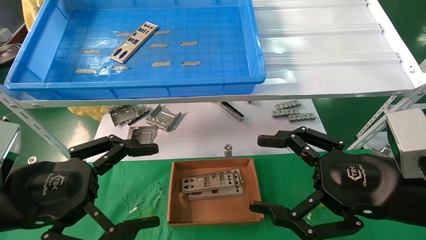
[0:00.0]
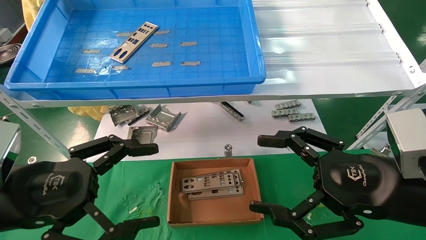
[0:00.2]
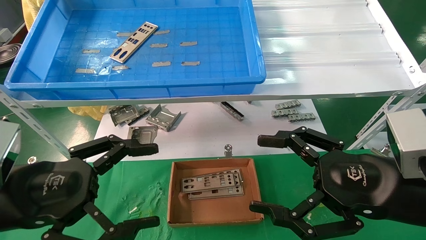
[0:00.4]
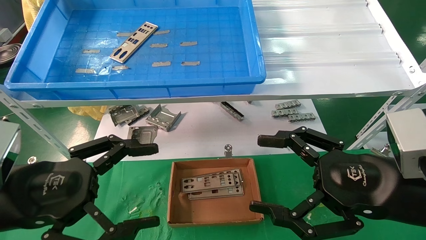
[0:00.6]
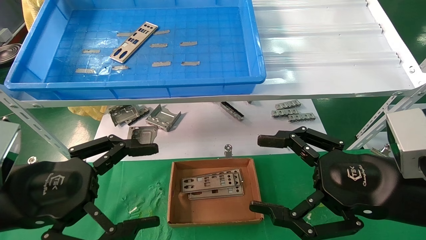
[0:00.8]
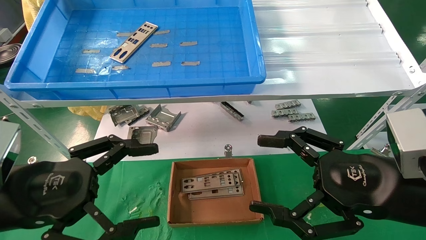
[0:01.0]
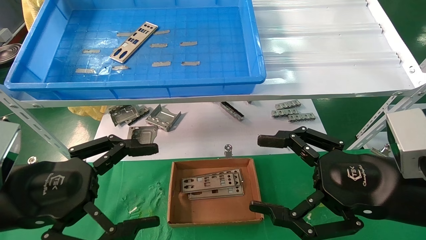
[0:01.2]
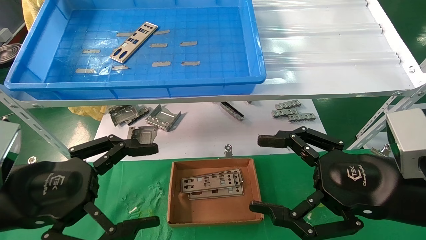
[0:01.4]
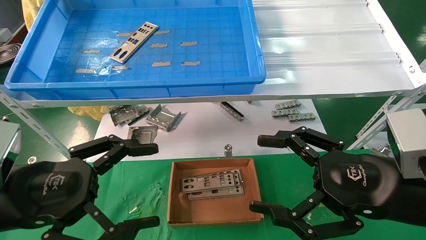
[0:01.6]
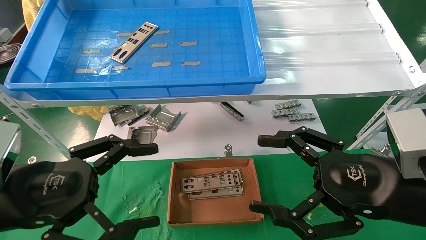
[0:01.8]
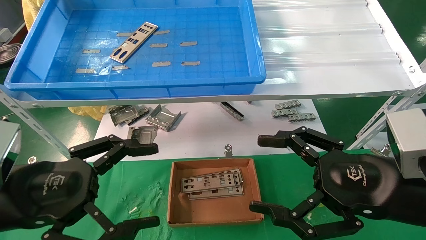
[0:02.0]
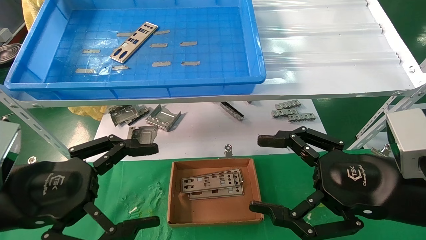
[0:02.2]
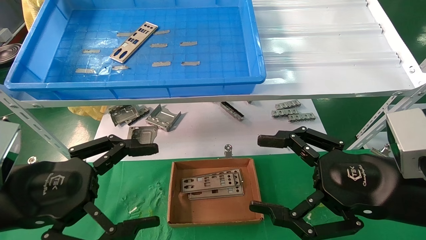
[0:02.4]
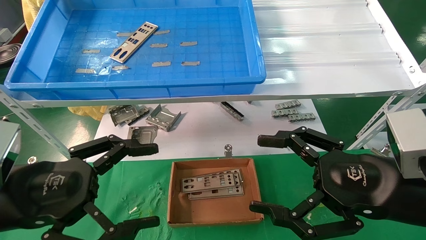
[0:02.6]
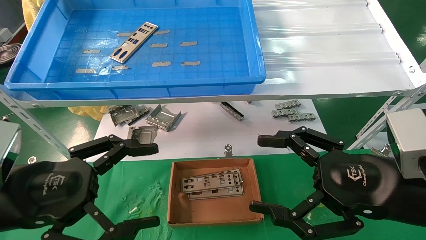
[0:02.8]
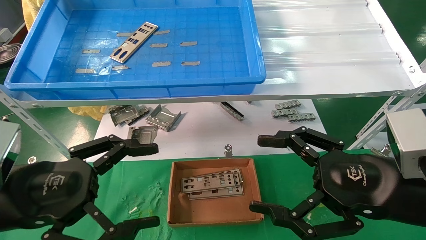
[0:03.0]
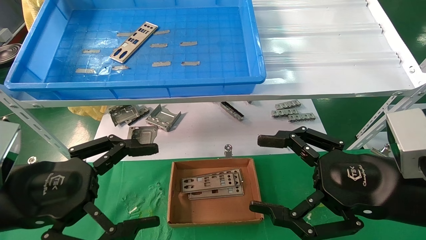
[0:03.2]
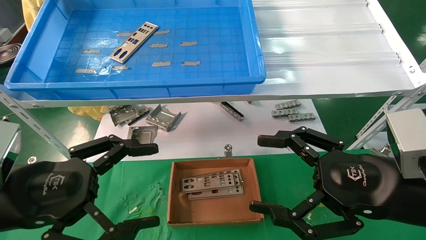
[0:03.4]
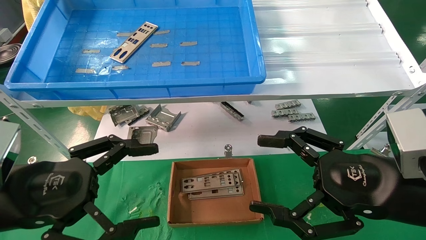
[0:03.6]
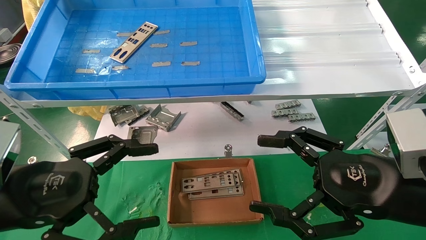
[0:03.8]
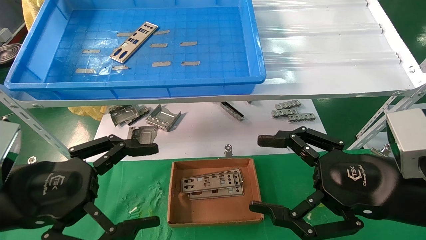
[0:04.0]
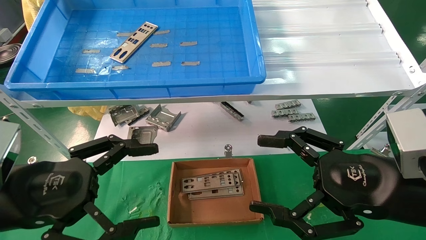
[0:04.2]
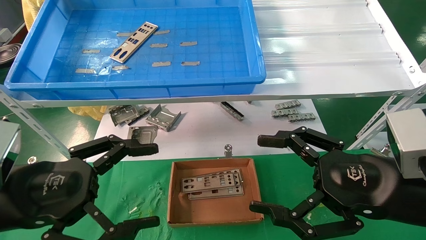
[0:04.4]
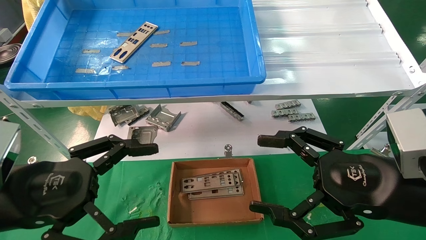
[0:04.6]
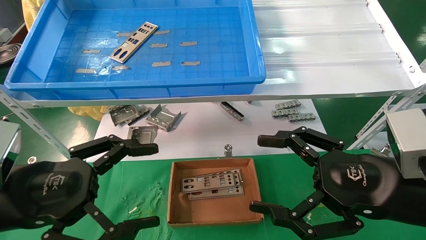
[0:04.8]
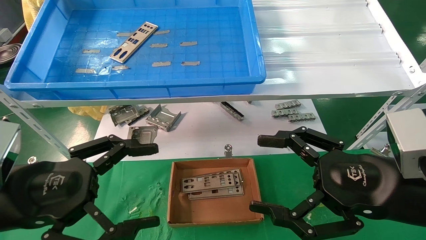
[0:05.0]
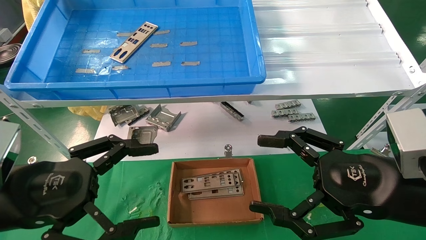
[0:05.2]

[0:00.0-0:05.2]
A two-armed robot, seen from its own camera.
Task of the whole recording: pick up the parts on the tray and put them in the cardboard box.
0:00.0 to 0:05.2: Both grippers stay put.
